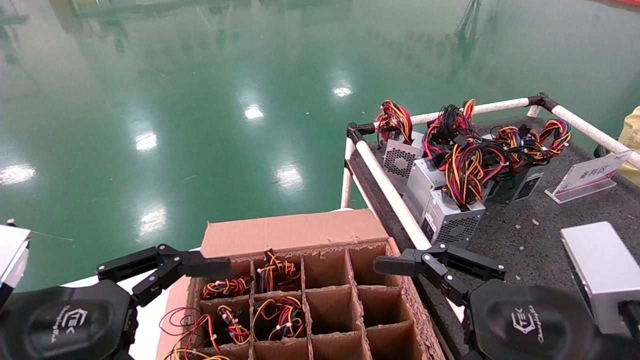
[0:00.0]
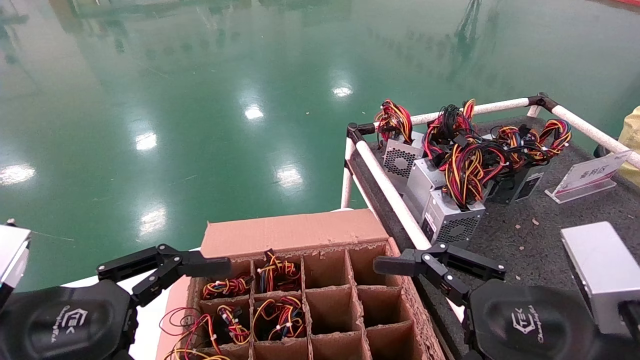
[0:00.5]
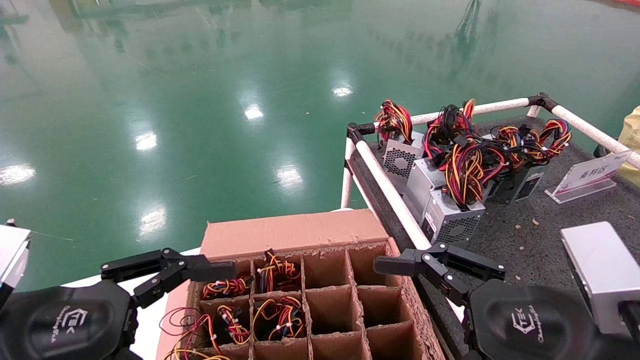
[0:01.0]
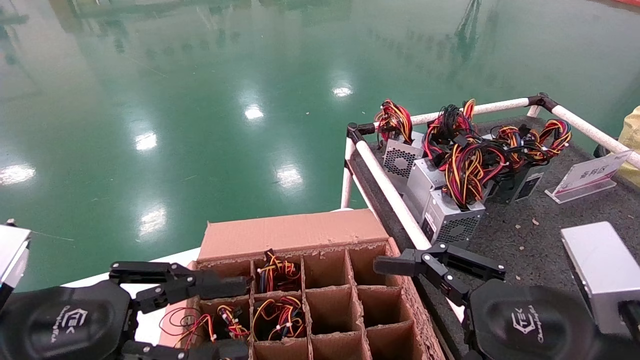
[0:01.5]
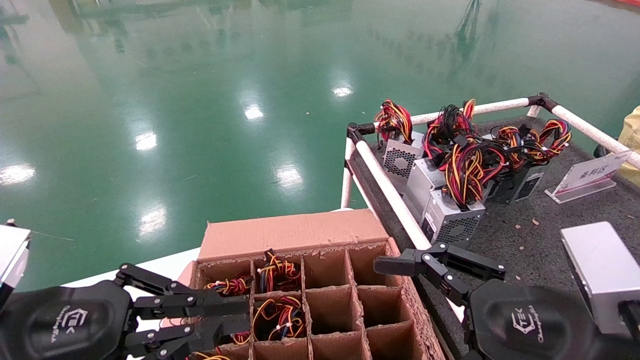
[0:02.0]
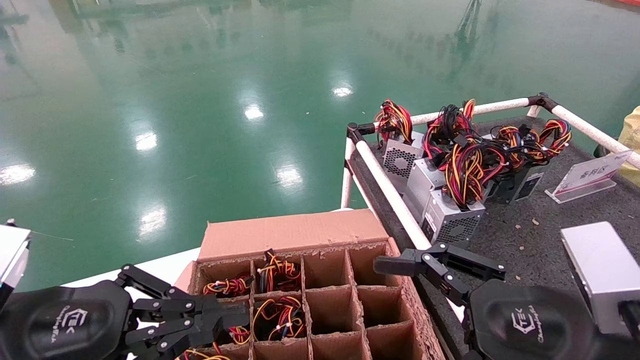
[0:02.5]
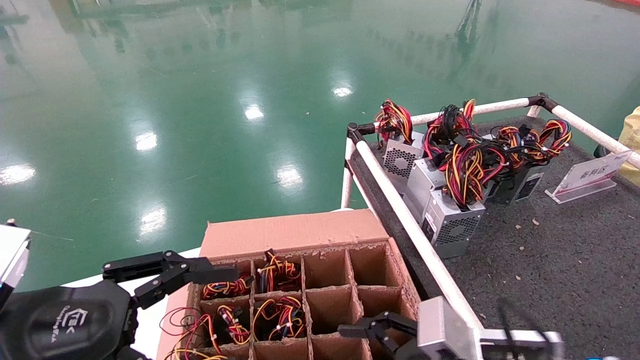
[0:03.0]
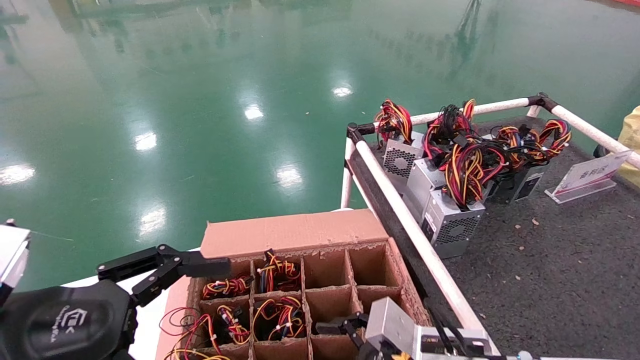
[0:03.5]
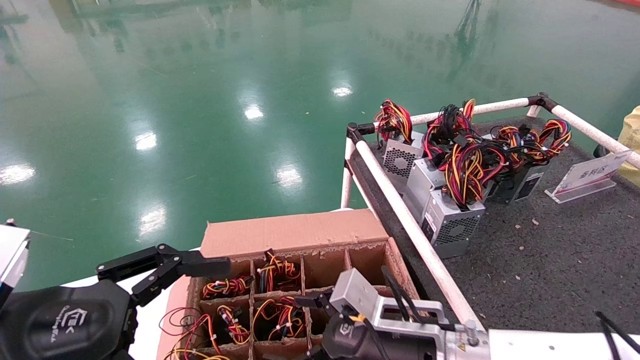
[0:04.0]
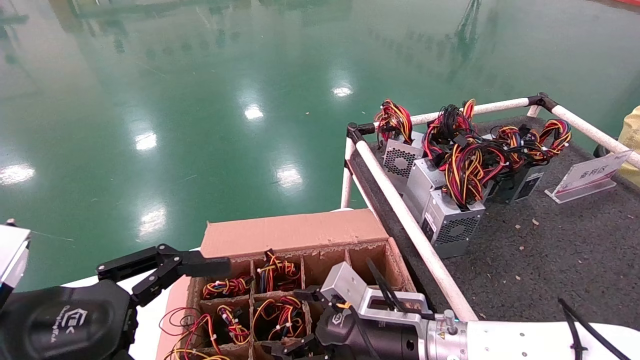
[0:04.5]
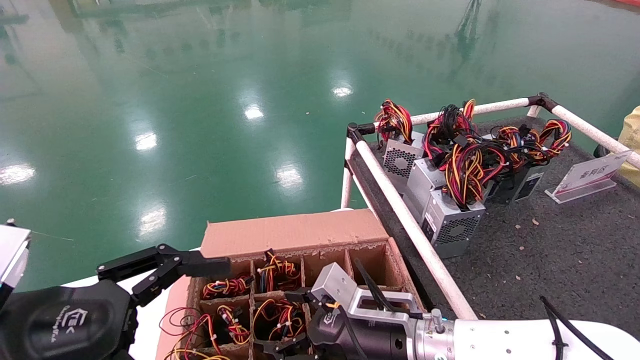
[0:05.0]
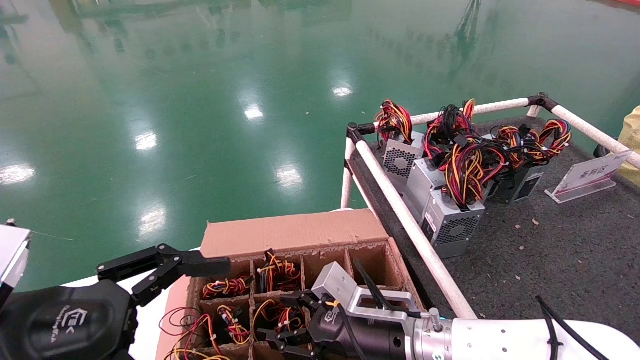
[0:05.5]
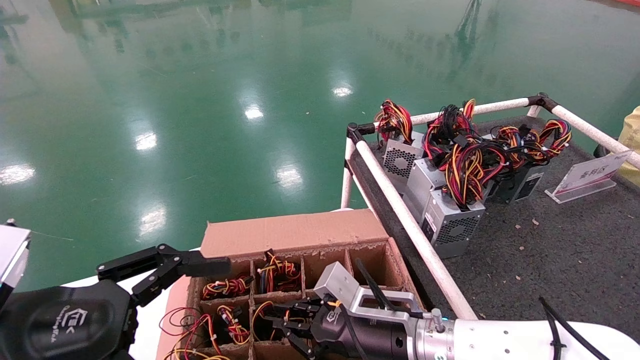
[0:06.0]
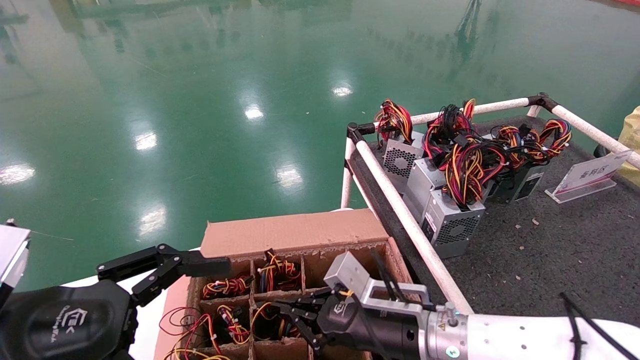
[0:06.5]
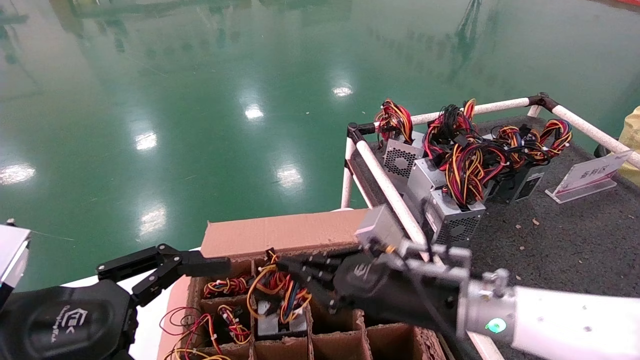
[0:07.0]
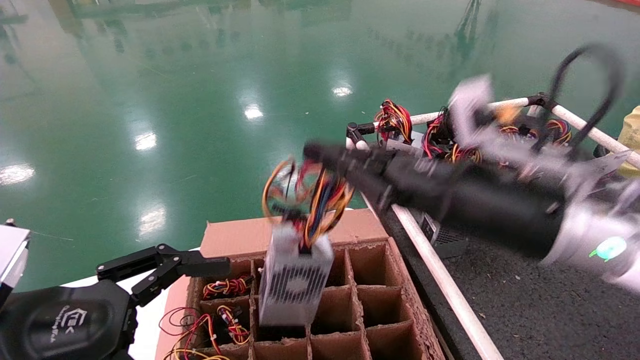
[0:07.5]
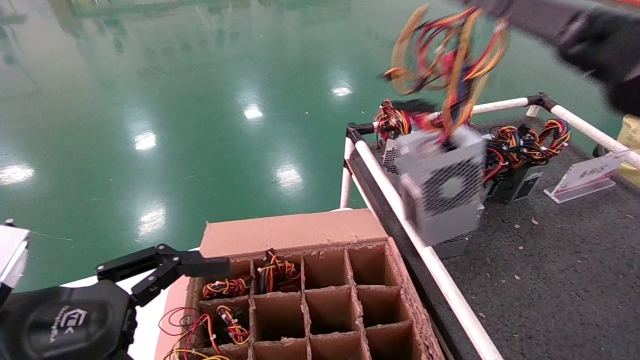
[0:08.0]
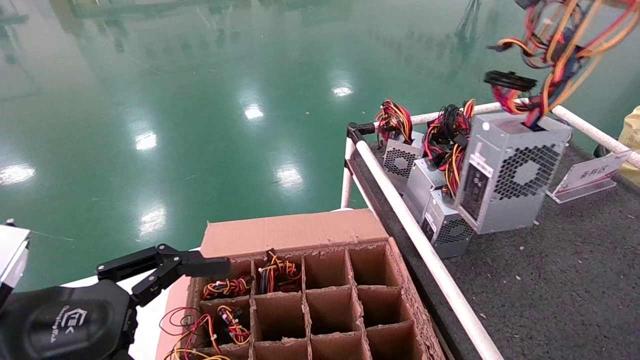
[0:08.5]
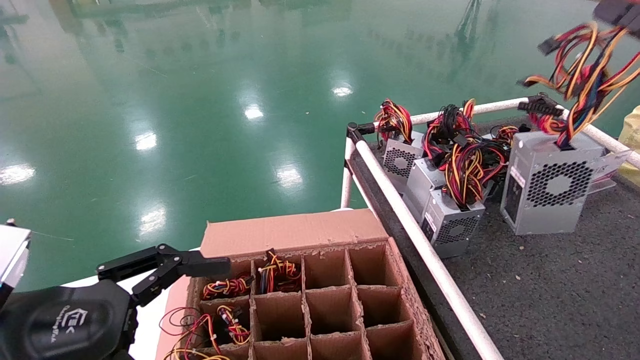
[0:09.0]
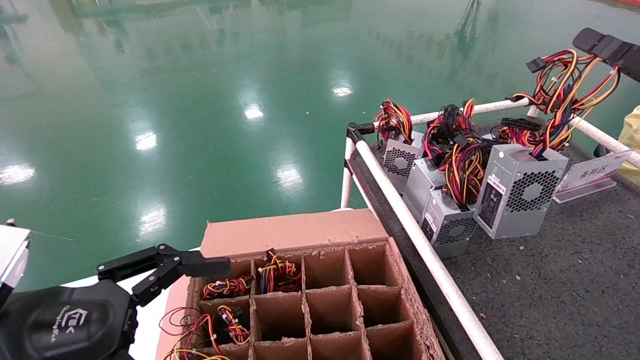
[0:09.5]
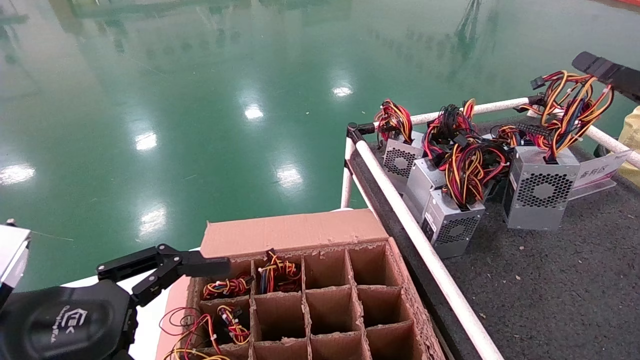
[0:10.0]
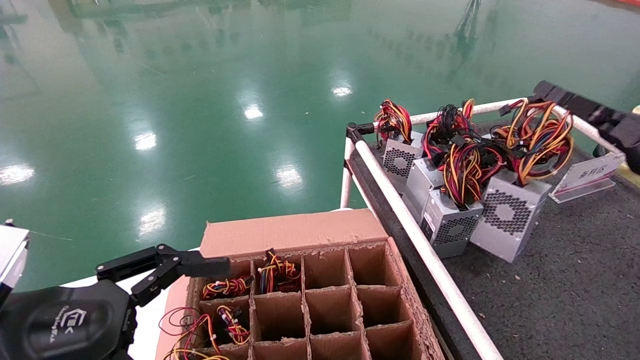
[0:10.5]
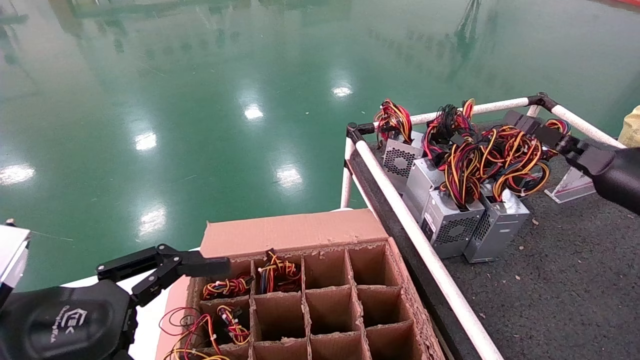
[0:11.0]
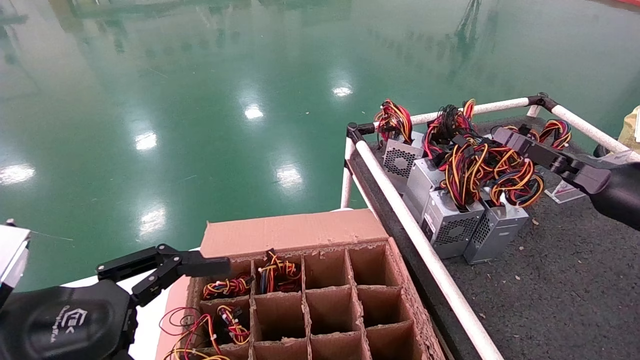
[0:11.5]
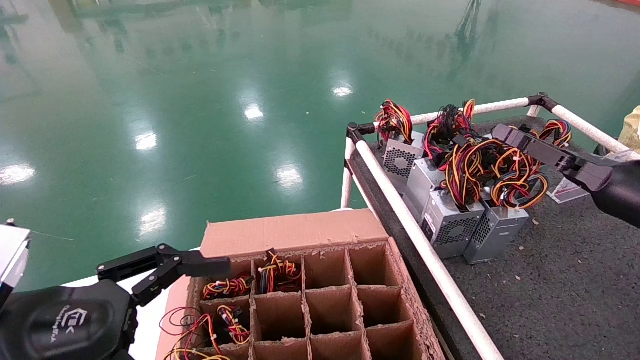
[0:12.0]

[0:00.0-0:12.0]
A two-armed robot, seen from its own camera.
Step, 0:01.5 to 0:07.0: Grab and lift the power supply from the large box.
0:00.0 to 0:02.0: The left gripper closes up.
0:02.0 to 0:04.0: The right gripper shifts about 15 cm downward, forward and to the left. The left gripper opens up.
0:04.0 to 0:06.0: The right gripper travels forward and to the left by approximately 10 cm.
0:06.0 to 0:08.0: The right gripper travels upward, backward and to the right by about 15 cm, and closes up.
0:08.0 to 0:10.0: The right gripper moves to the right and upward, about 30 cm.
0:10.0 to 0:12.0: The right gripper travels downward and forward by about 10 cm.

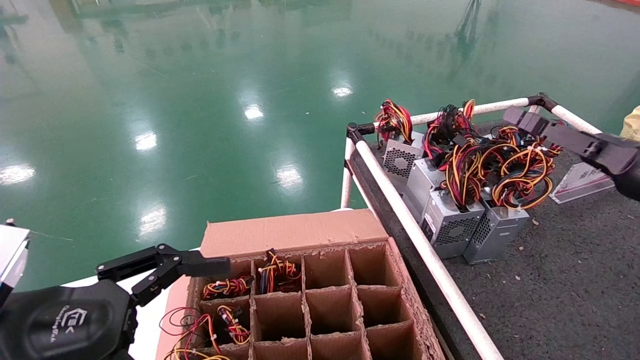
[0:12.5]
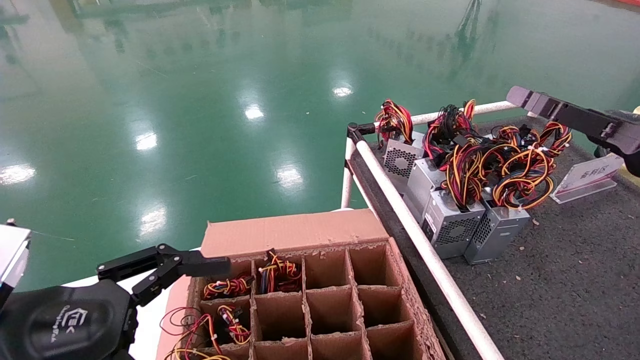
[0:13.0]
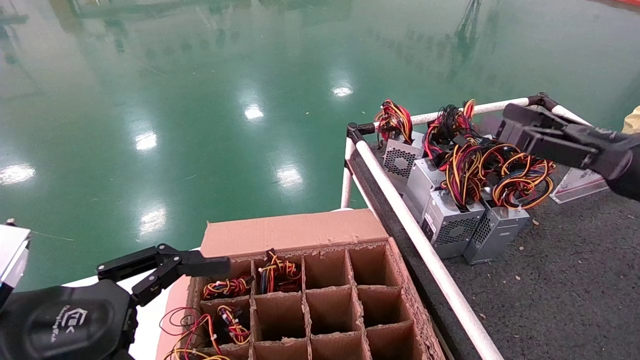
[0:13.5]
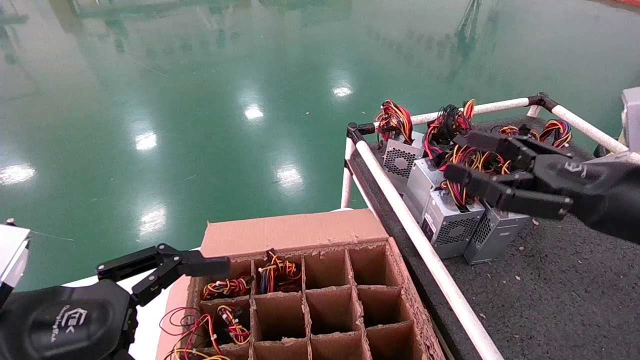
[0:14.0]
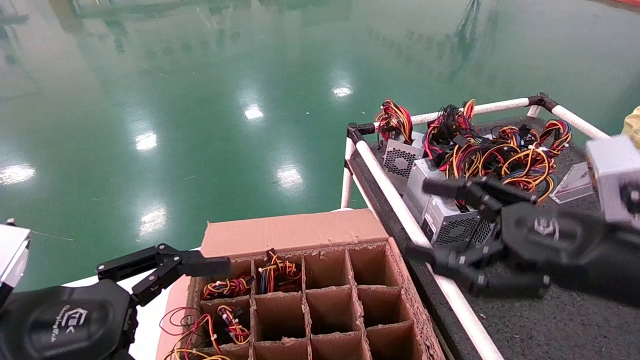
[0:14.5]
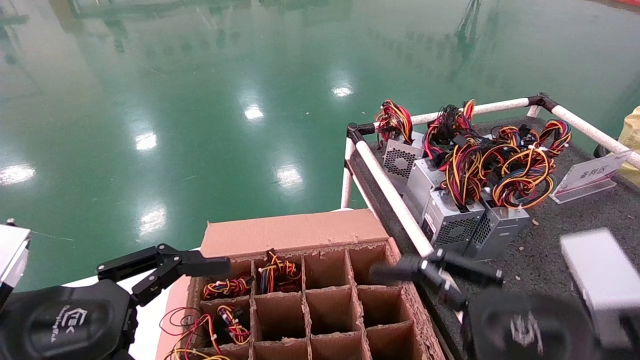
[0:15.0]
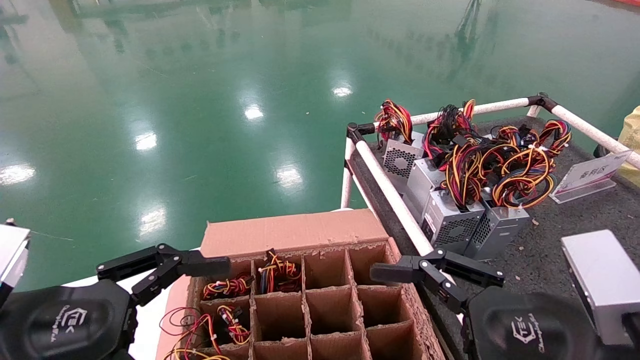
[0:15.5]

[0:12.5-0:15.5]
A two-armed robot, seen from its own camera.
0:12.5 to 0:14.0: The right gripper travels upward by roughly 5 cm, and opens its fingers.
0:14.0 to 0:15.5: The right gripper heads to the left, backward and downward, covering approximately 15 cm.
